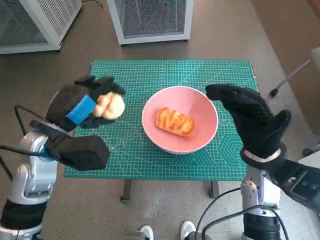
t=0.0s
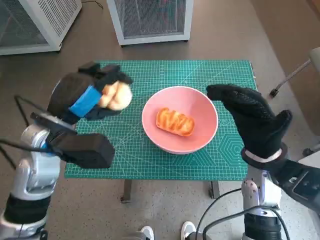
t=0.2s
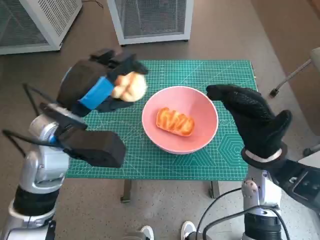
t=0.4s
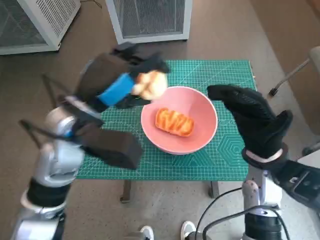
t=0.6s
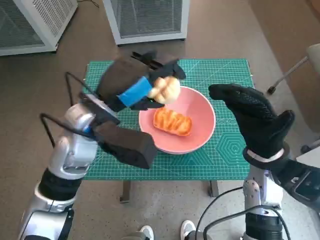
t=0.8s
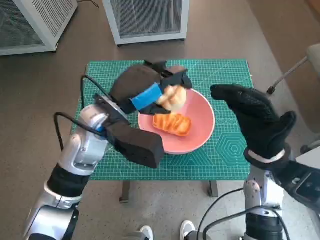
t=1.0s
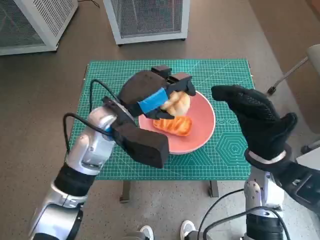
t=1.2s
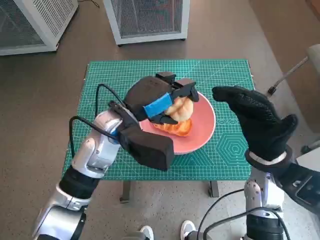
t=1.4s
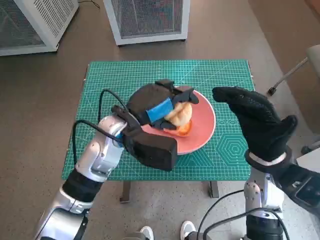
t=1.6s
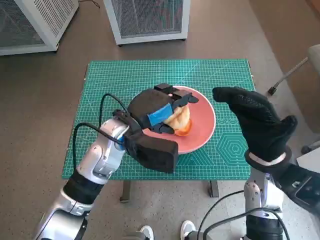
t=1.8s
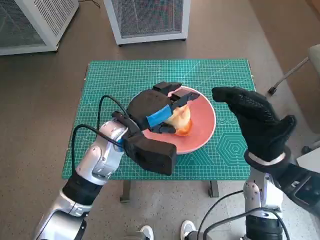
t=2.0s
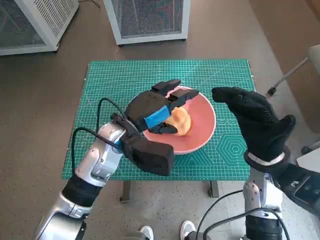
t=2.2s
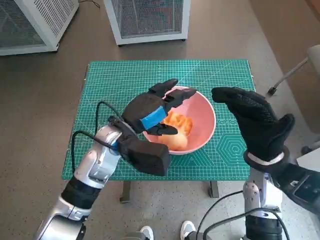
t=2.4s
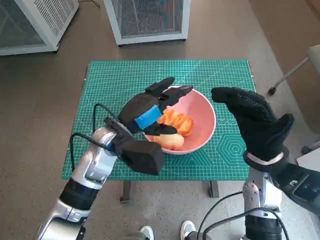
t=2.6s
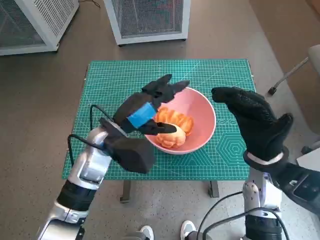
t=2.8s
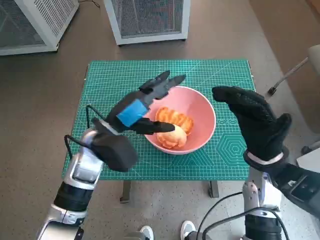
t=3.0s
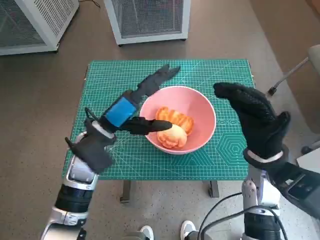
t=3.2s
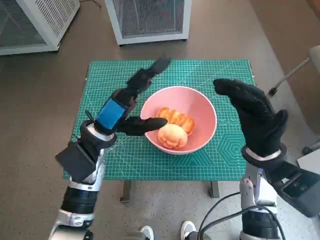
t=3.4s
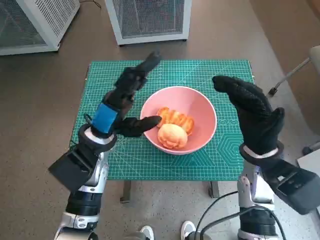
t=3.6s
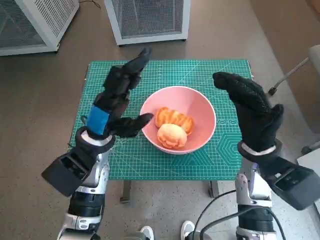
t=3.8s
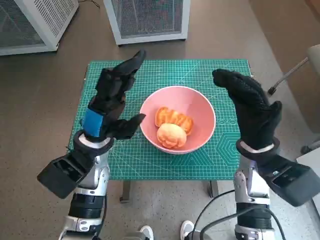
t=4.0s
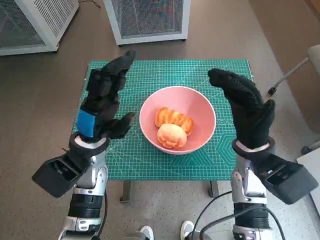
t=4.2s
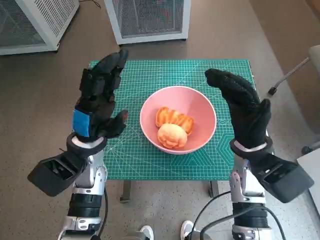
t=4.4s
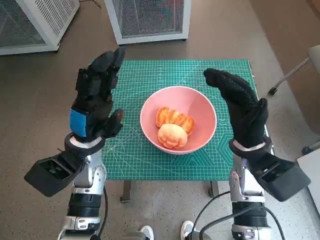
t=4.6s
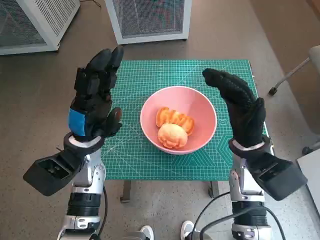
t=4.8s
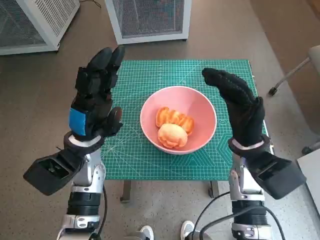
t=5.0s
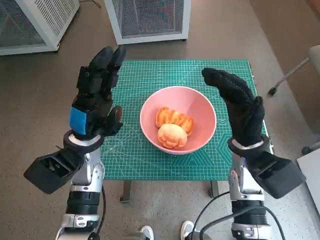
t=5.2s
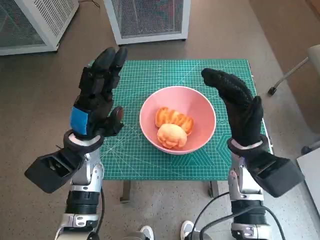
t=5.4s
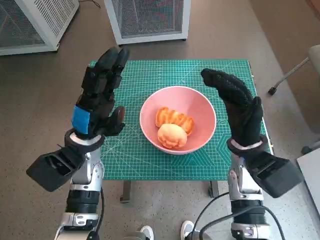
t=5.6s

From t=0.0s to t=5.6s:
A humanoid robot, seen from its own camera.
Task of the whole recording: Push the bowl into the center of the table and put the bread into the bowl.
Step, from t=0.0s to t=2.0s: Place the round bread in pink bowl with left hand.
From t=0.0s to t=1.4s: The left hand goes some 10 cm to the right.
From t=1.4s to t=2.8s: The hands stay close to where they were, moving slightly.
From t=4.2s to t=5.6s: The hands move only a little.

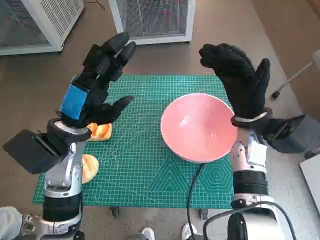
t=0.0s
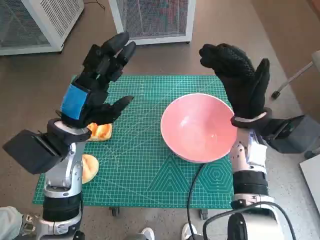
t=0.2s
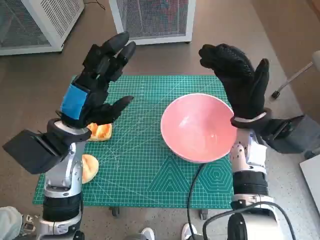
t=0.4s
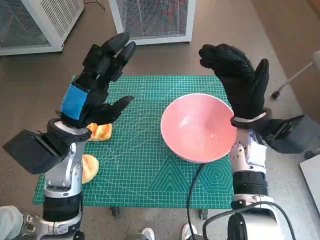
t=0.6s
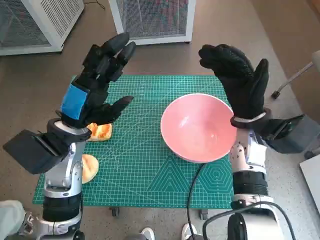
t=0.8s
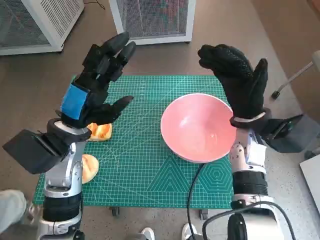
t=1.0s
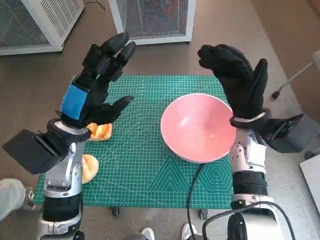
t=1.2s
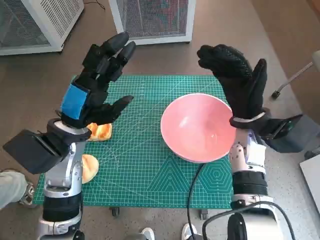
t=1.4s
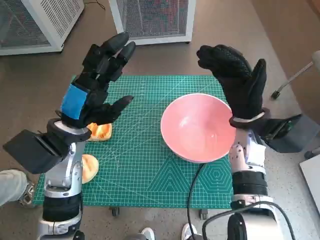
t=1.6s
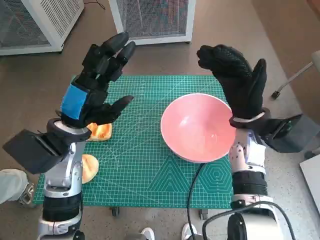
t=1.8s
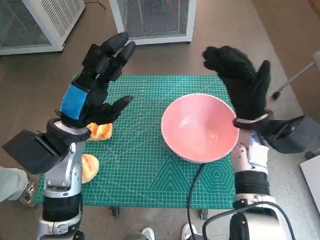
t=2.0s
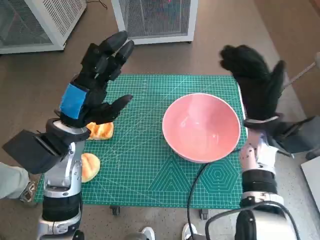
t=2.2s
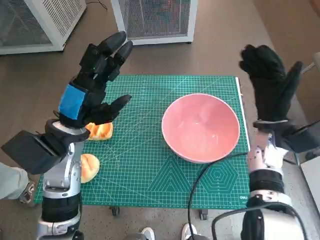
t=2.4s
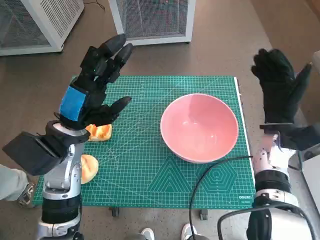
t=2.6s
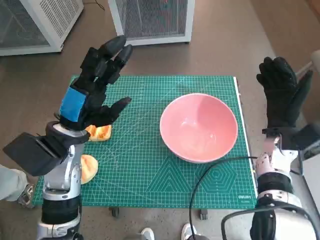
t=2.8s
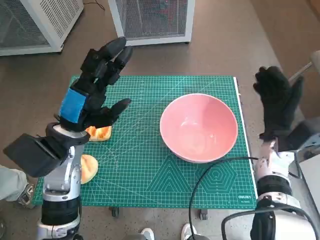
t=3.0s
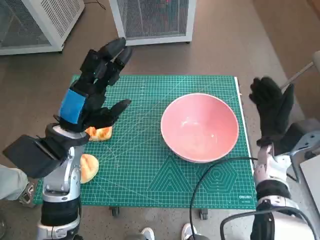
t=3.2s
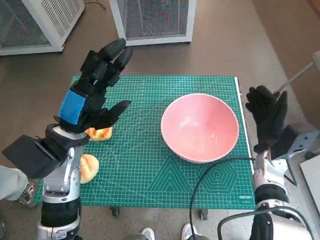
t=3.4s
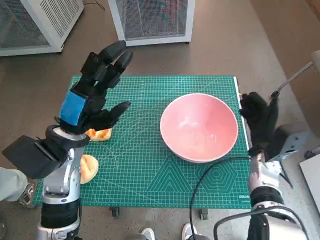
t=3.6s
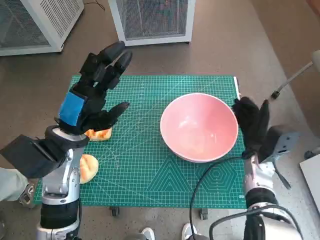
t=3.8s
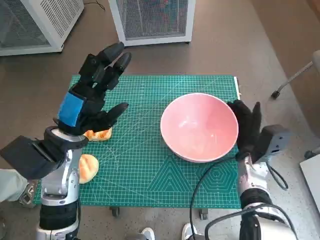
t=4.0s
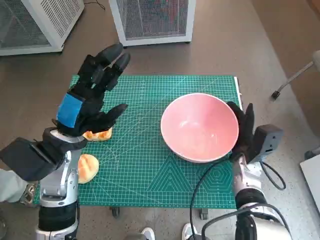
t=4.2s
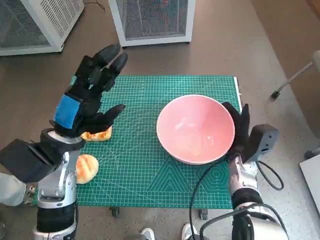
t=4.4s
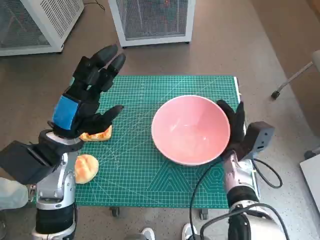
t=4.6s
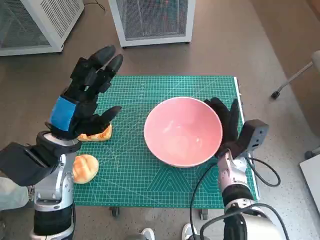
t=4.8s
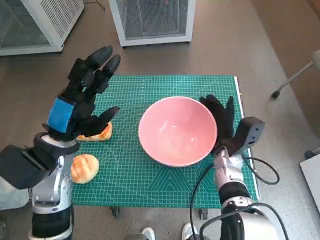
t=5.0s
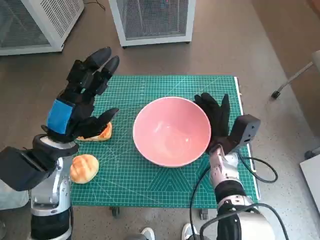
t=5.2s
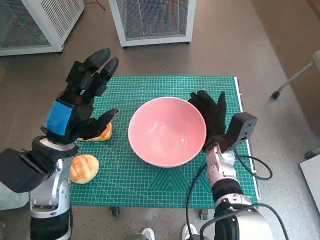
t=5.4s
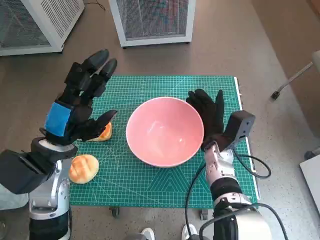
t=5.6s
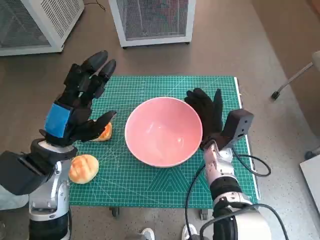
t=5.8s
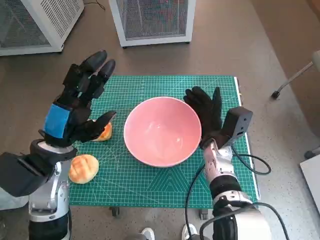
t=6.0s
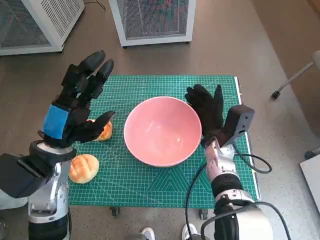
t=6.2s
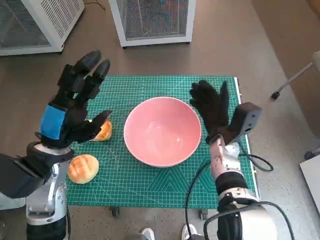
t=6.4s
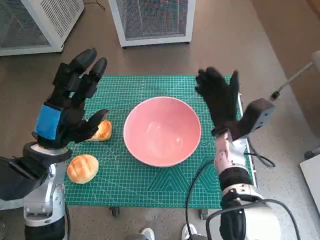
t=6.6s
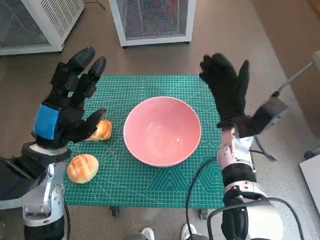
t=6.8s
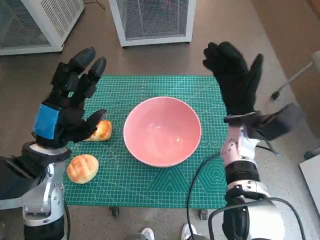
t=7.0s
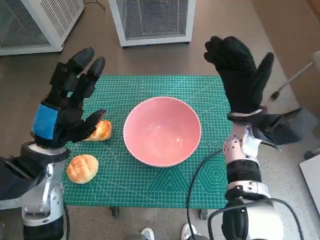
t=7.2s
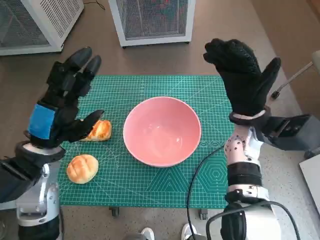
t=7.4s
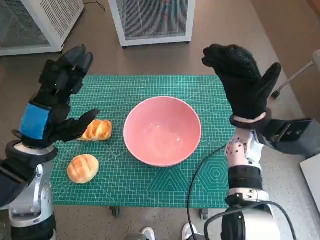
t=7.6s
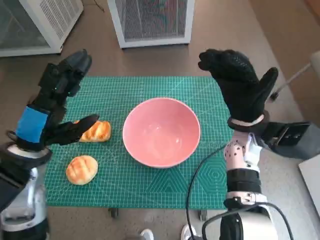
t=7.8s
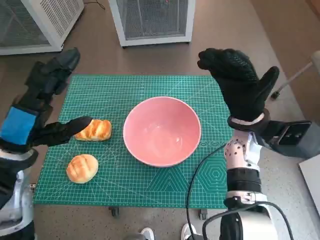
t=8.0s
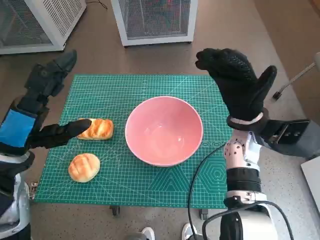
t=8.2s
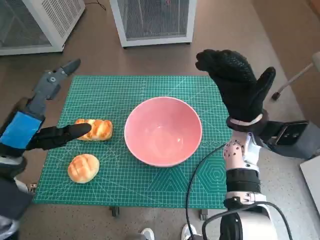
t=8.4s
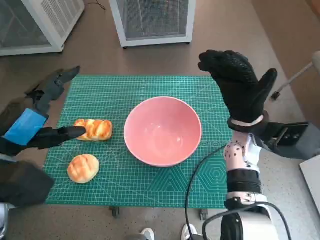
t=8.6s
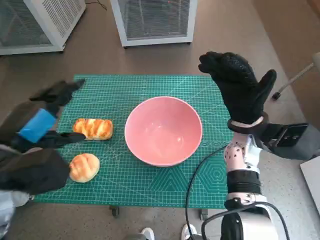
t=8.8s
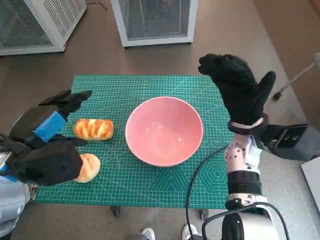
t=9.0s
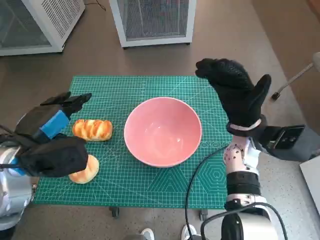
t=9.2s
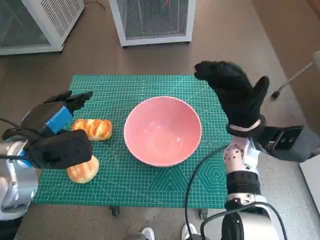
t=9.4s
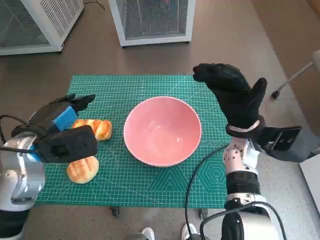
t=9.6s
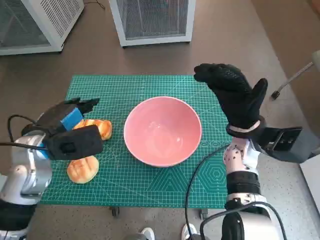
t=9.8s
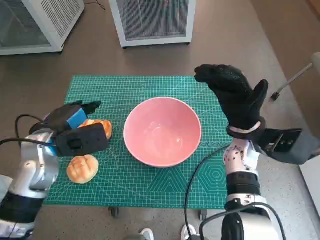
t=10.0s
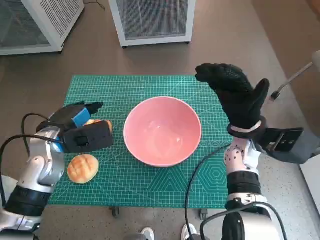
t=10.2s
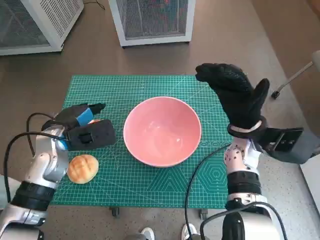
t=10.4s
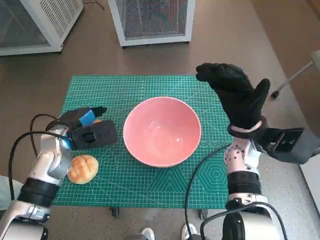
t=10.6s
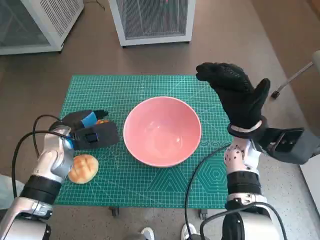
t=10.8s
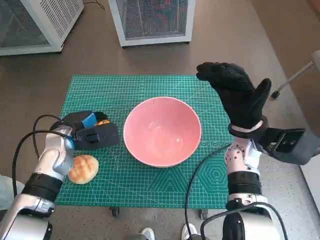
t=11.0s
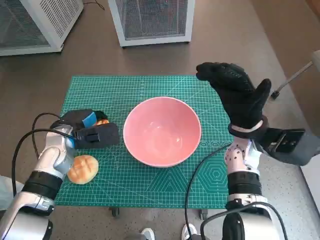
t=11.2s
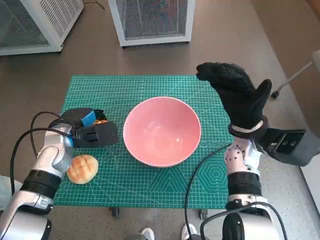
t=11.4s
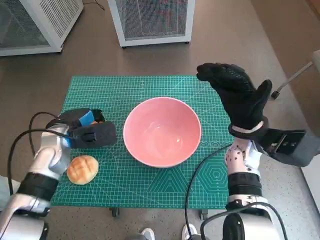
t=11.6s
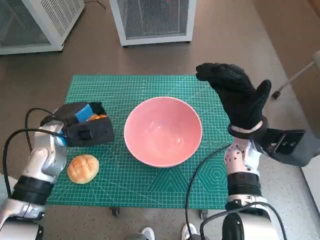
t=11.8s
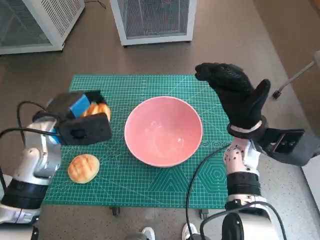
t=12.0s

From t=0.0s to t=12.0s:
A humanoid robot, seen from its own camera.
Task of the whole recording: Push the bowl into the center of the table and put the bread into the bowl.
Step, from t=0.0s to t=6.4s: Move the pink bowl to the center of table with right hand.
Step, from t=6.6s to t=11.0s: Grasp the long bread with left hand.
From t=1.6s to t=3.0s: The right hand moves to the right and downward, roughly 10 cm.
From t=3.0s to t=4.4s: The right hand goes some 10 cm downward and to the left.
From t=4.4s to t=6.0s: The right hand is displaced to the left by roughly 5 cm.
From t=6.0s to t=7.6s: The right hand moves upward and to the right, approximately 10 cm.
From t=9.0s to t=10.4s: The left hand heads forward and downward, covering some 10 cm.
From t=10.4s to t=12.0s: The hands make only small movements.

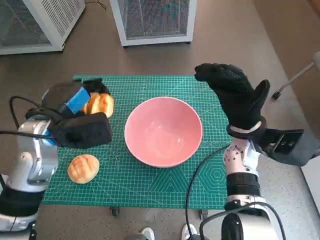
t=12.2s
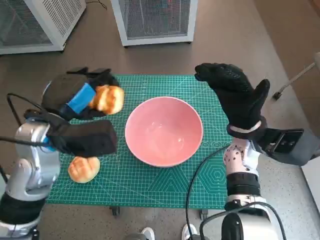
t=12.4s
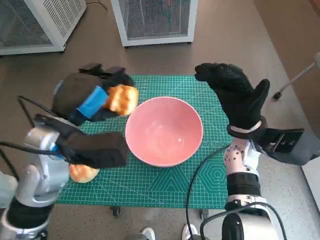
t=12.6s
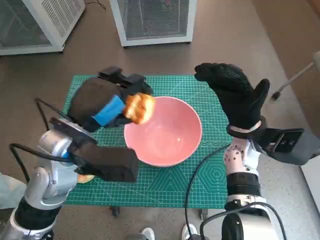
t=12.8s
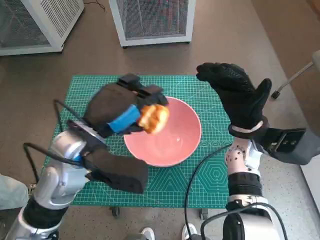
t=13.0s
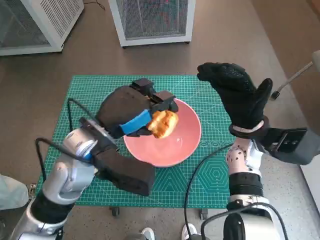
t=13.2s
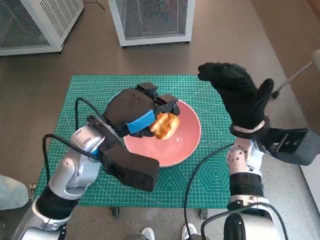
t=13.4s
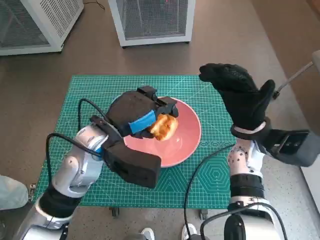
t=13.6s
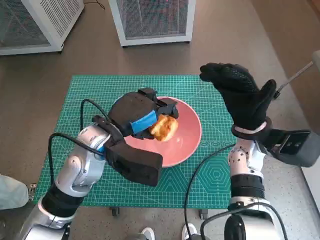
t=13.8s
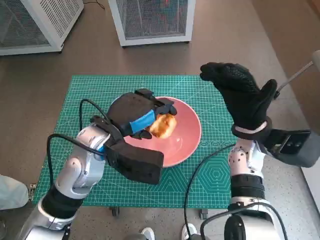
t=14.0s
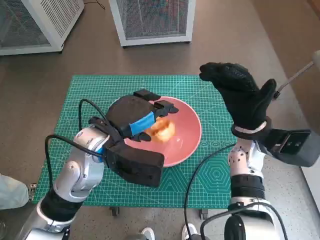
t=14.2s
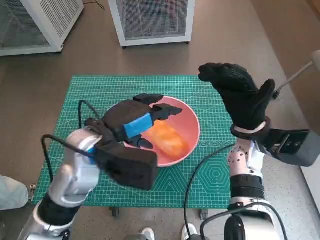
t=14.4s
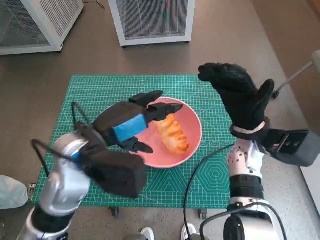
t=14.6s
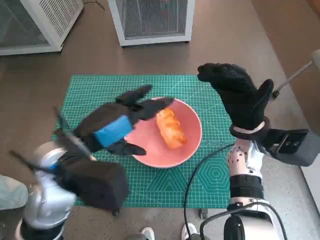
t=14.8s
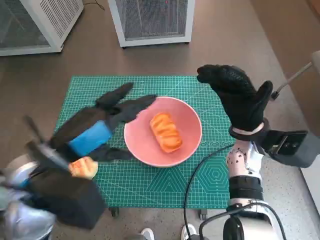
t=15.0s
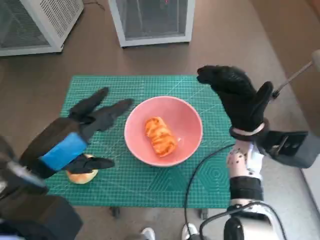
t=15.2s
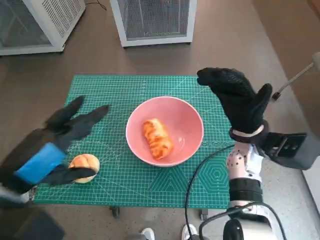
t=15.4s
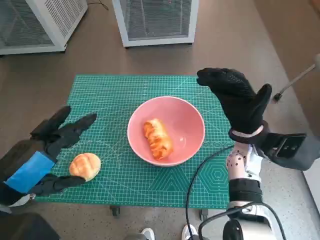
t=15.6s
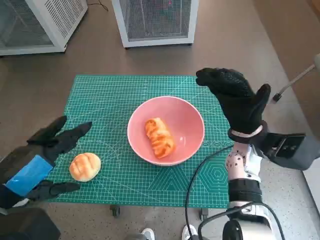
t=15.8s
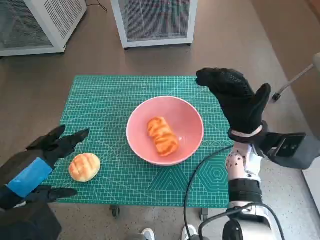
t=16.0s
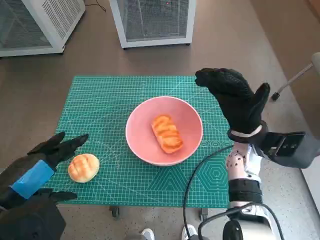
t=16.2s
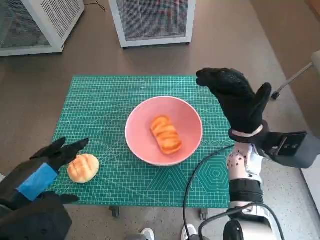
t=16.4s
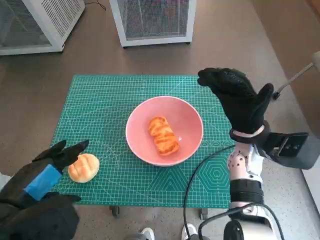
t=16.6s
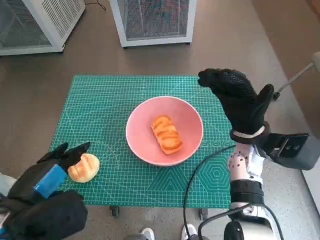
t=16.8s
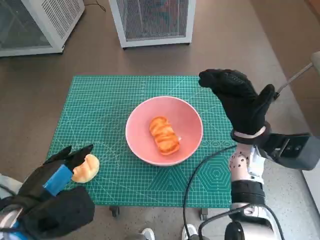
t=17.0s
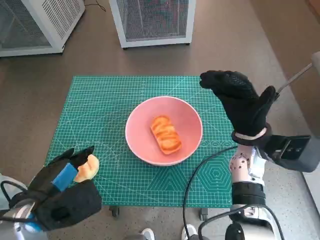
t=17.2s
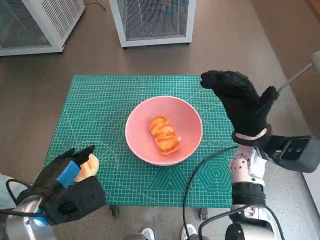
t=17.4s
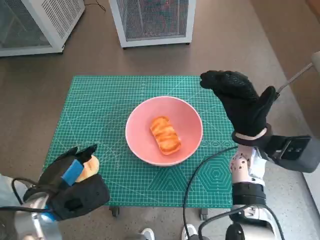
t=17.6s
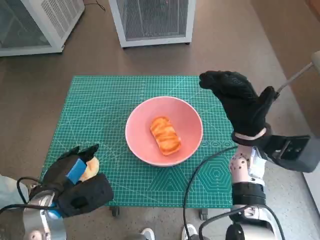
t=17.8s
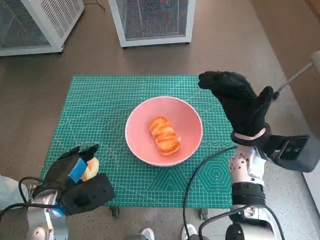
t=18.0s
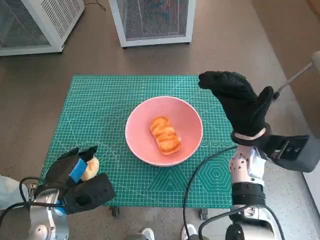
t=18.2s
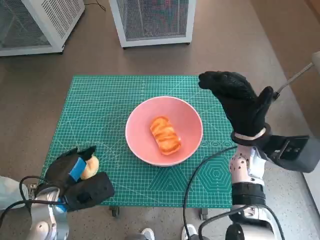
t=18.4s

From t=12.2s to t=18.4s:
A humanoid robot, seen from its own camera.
Task of the whole recording: Push the bowl into the center of the table and put the bread into the bowl.
Step, from t=12.2s to t=14.2s: Place the long bread in pink bowl with left hand.
From t=12.2s to t=13.8s: The left hand goes roughly 10 cm to the right.
From t=13.8s to t=15.4s: The left hand is displaced backward, to the left and upward by some 15 cm.
From t=15.4s to t=16.8s: The left hand moves roughly 5 cm.
From t=16.8s to t=18.4s: The left hand is displaced downward and forward by about 10 cm.
